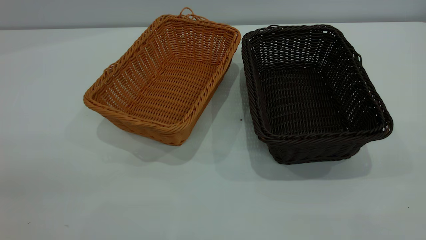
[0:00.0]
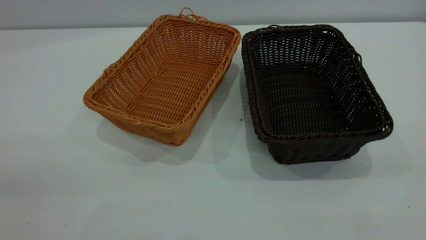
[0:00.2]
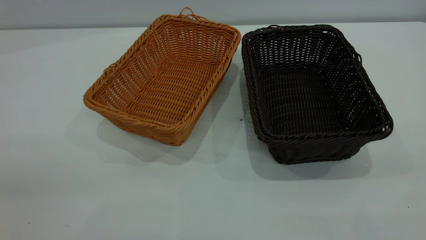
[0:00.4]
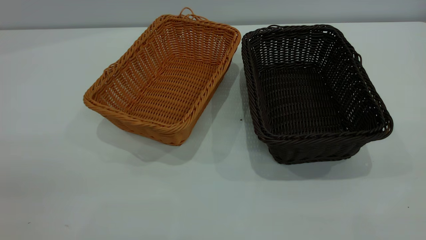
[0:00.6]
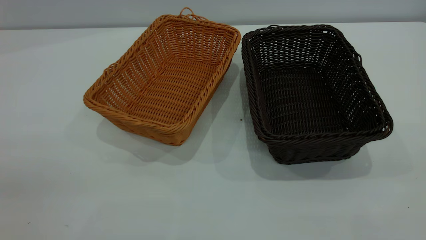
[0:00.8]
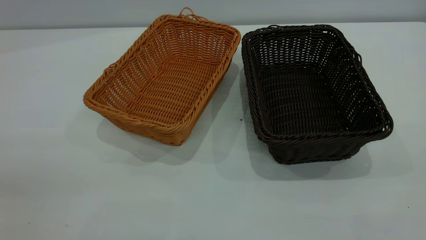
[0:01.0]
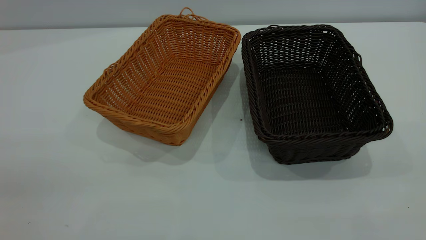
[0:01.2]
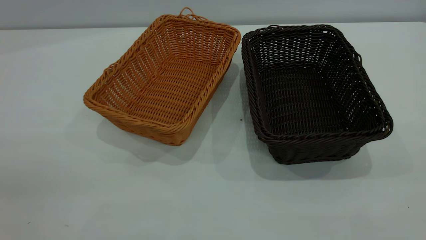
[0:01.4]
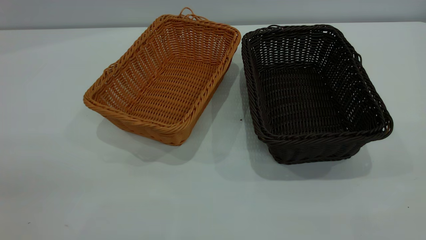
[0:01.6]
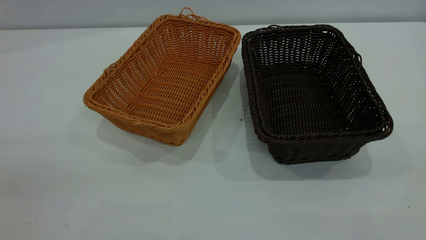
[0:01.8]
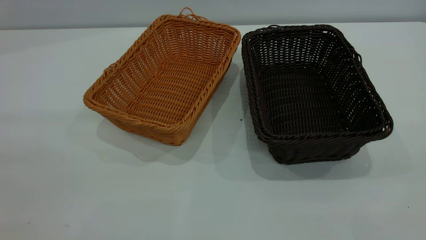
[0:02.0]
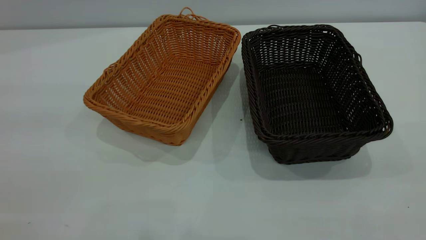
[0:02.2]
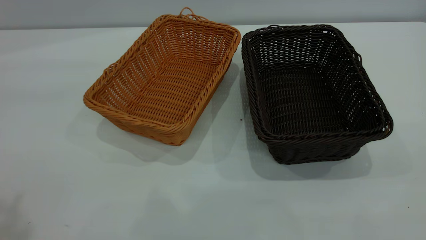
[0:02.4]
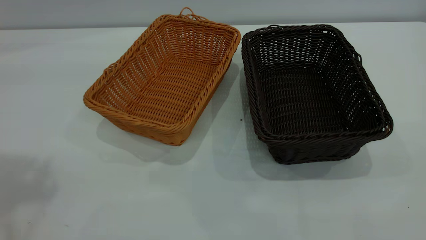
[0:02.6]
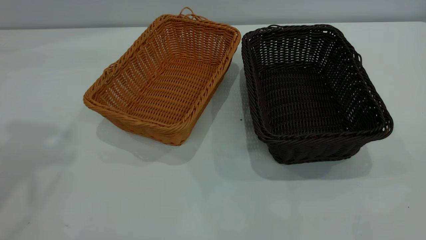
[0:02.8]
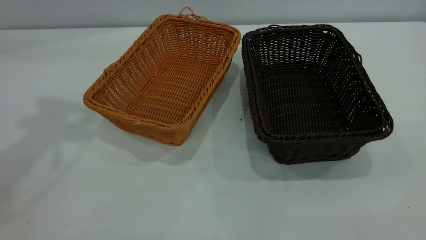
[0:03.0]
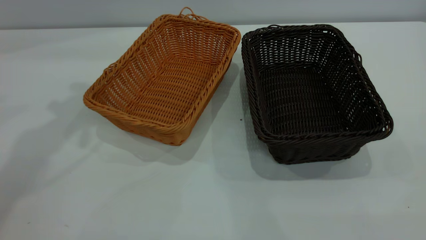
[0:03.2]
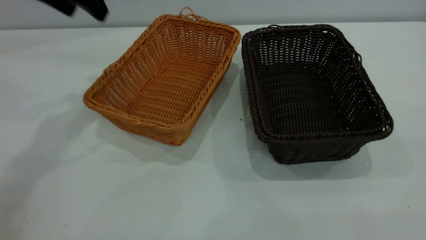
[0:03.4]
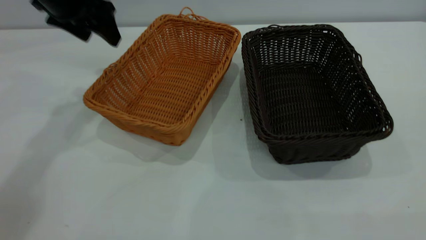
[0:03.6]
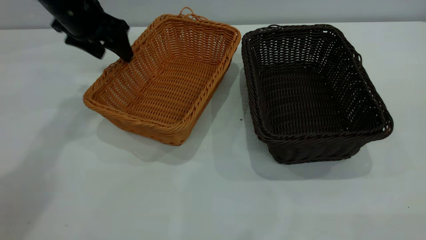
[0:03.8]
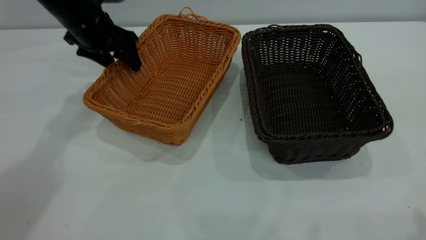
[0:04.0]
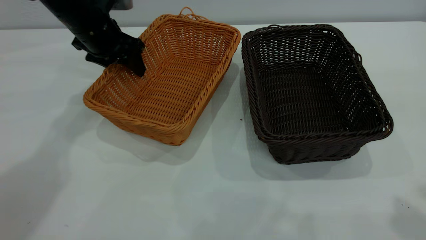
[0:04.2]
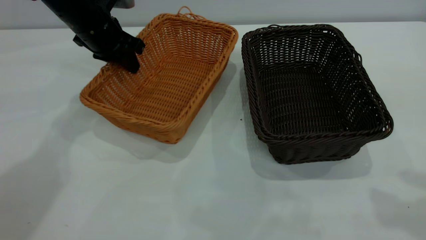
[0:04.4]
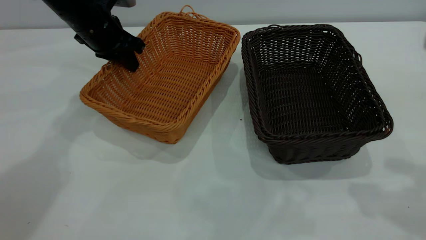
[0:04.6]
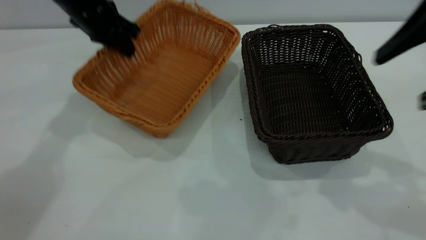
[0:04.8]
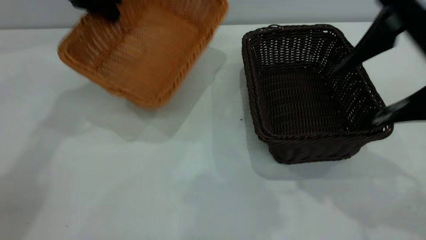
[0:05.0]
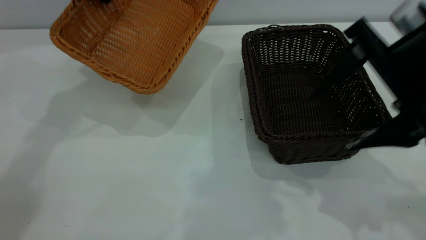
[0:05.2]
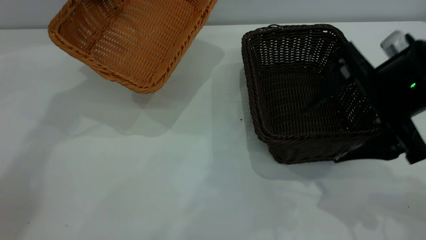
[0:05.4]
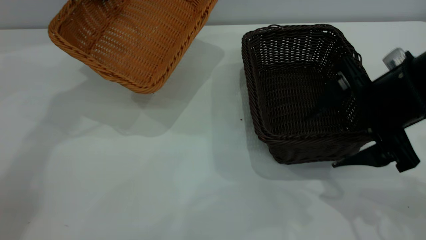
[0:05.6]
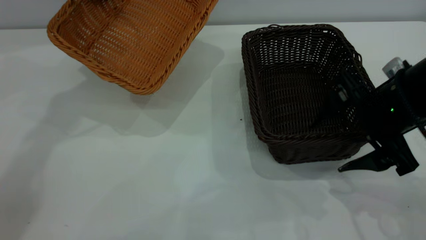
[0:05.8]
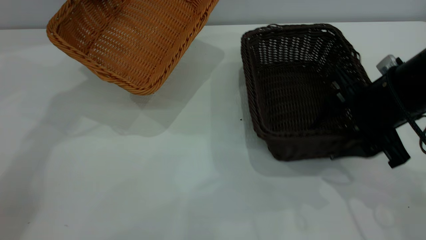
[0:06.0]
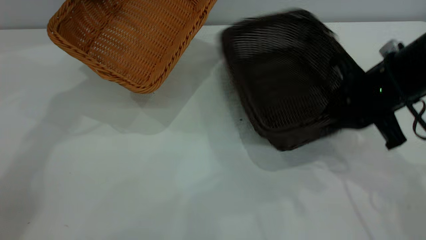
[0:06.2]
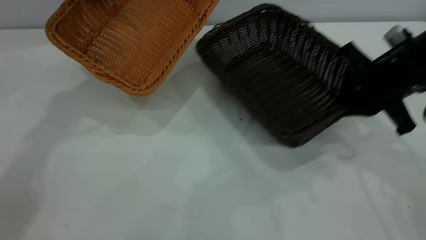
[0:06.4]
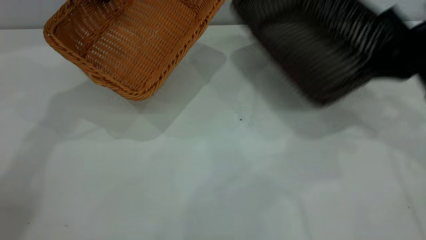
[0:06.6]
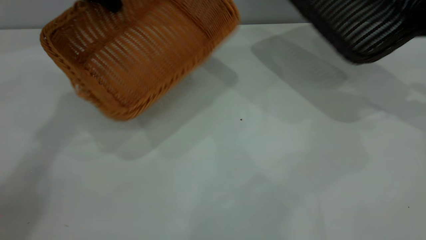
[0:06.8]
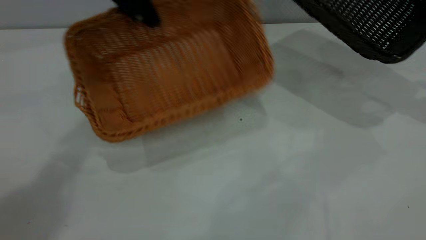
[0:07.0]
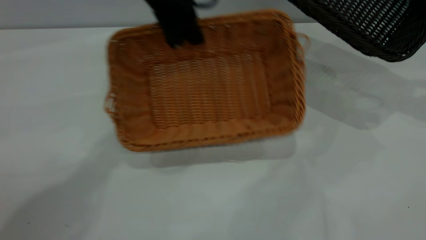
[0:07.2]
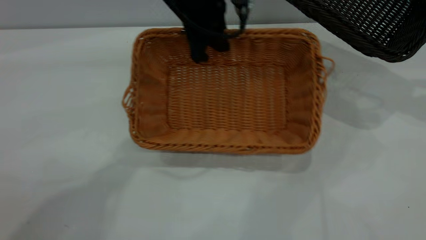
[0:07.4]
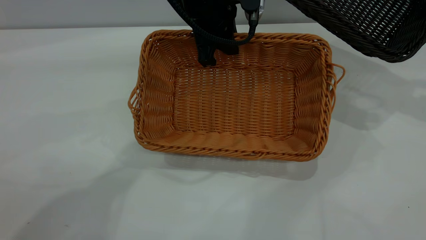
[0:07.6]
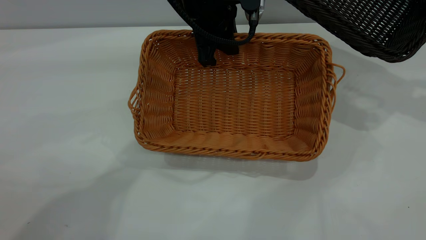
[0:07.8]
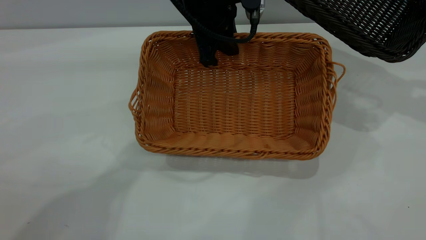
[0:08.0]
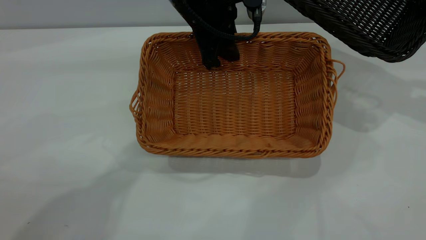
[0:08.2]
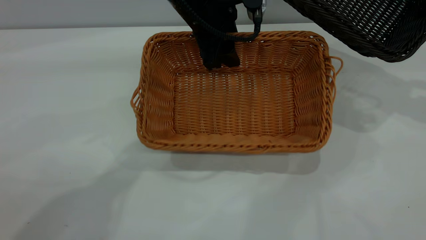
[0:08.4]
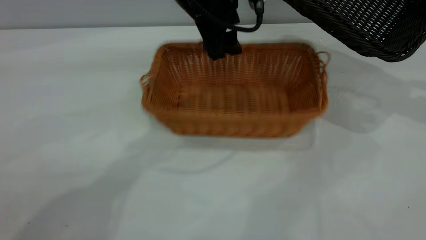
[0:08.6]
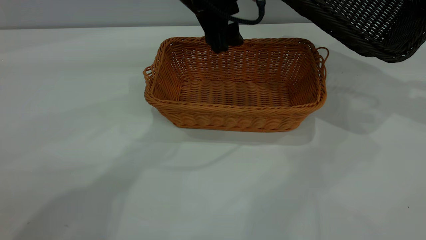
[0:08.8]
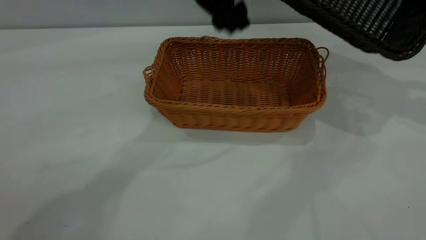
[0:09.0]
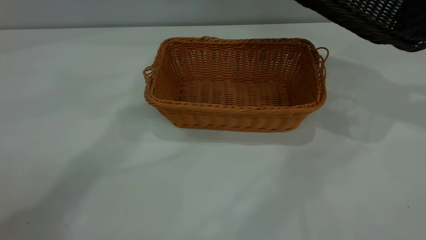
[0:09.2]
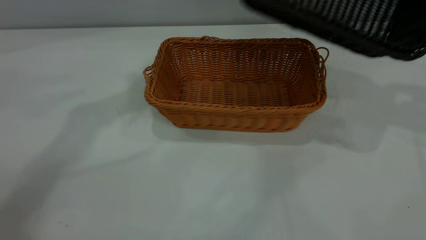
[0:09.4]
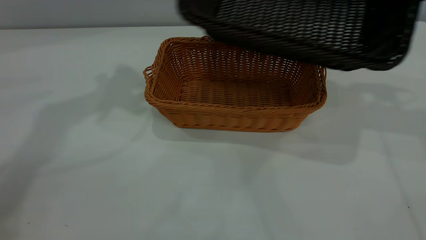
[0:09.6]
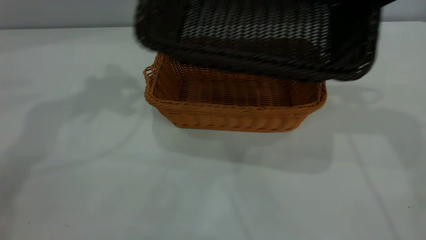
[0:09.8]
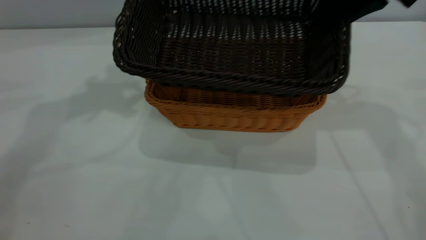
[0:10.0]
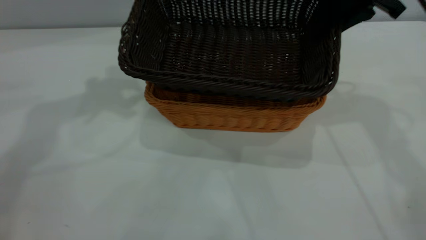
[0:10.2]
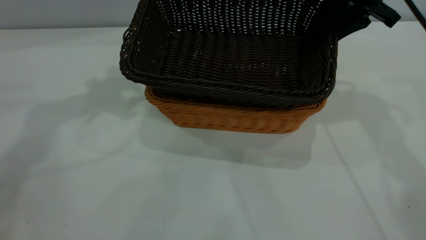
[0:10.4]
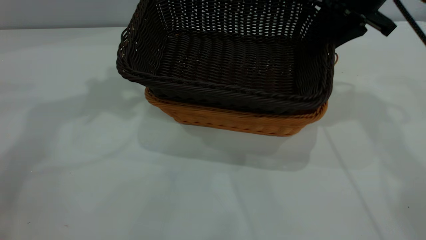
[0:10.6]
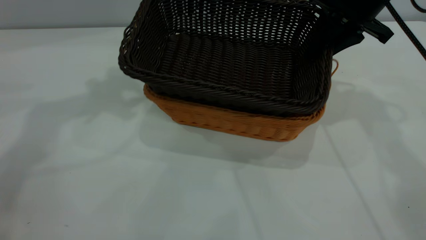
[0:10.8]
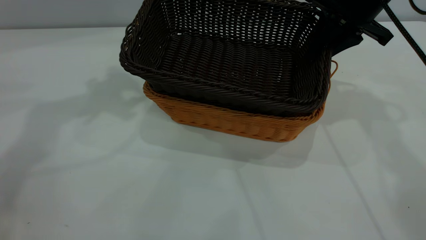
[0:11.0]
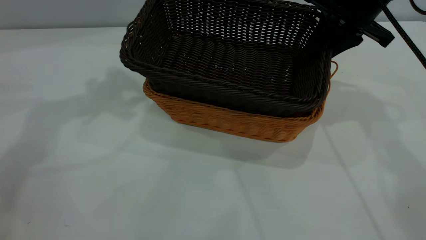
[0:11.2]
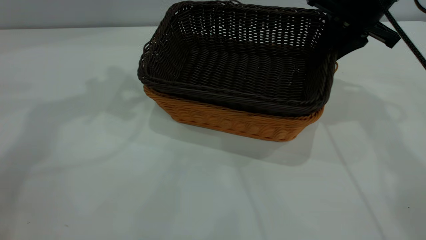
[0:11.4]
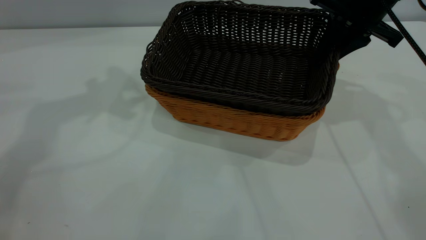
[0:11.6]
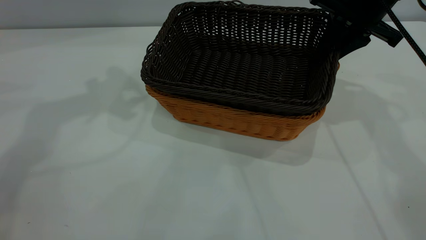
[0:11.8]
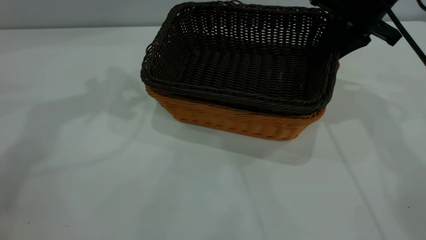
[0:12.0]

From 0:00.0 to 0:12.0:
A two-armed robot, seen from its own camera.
Task of the whole recording: the left gripper grasp the brown basket and place it in the center of the table, the right gripper grasp the black basket and place it inside the brown one.
Step, from 0:00.0 to 0:06.4: Pick up the light basket with the right gripper.
Step, from 0:06.6 to 0:08.8: Place the light-colored basket in the center.
From 0:00.0 to 0:01.6: The two grippers keep their place.
From 0:03.0 to 0:04.4: The left gripper is displaced downward and forward by roughly 25 cm, and closes its fingers; the right gripper heads forward, covering approximately 20 cm.
From 0:04.4 to 0:06.0: The left gripper is displaced upward by approximately 10 cm. The right gripper moves downward and forward, some 20 cm, and closes its fingers.
From 0:06.0 to 0:07.6: The left gripper goes about 20 cm to the right. Meanwhile the right gripper is displaced to the right, upward and forward by some 25 cm, and closes its fingers.
From 0:07.6 to 0:09.0: The left gripper opens up.
From 0:09.0 to 0:10.4: The left gripper is displaced to the left and upward by some 20 cm, while the right gripper goes some 20 cm to the left.
From 0:10.4 to 0:12.0: There are only small adjustments of the grippers.

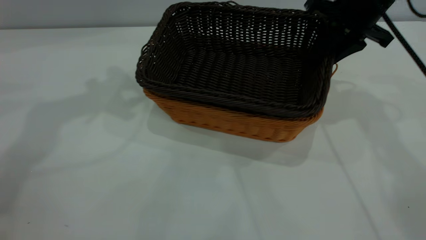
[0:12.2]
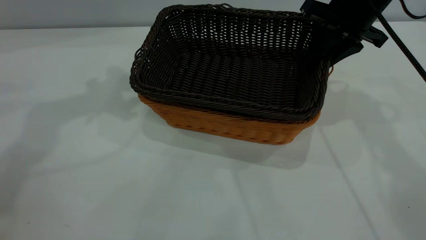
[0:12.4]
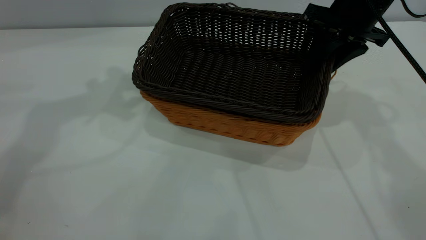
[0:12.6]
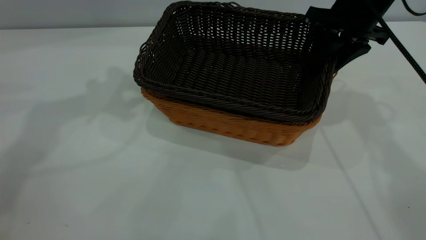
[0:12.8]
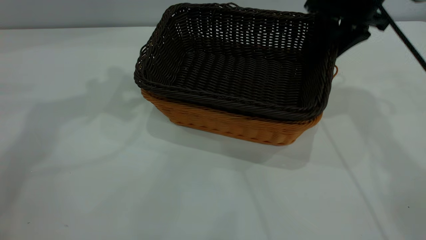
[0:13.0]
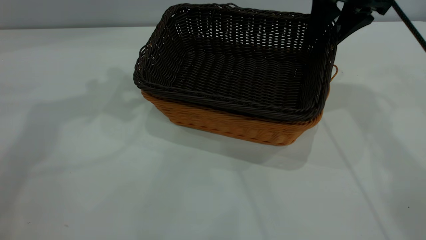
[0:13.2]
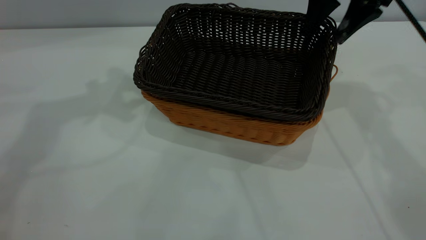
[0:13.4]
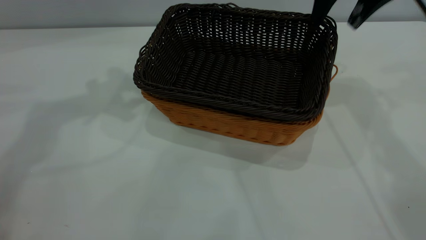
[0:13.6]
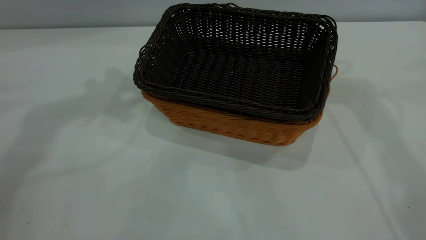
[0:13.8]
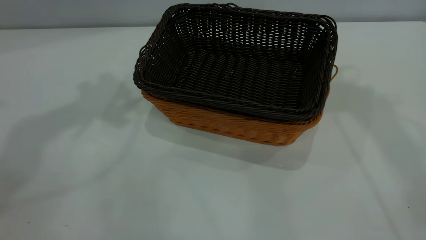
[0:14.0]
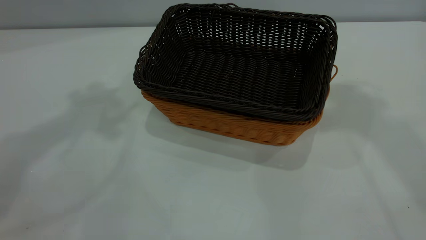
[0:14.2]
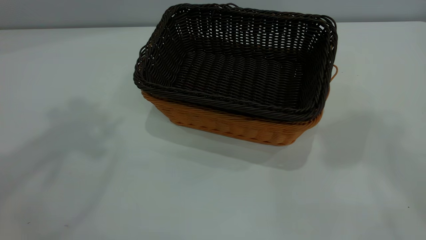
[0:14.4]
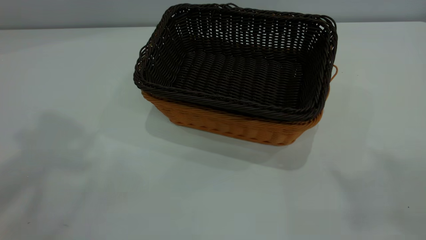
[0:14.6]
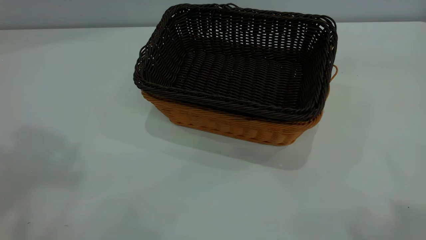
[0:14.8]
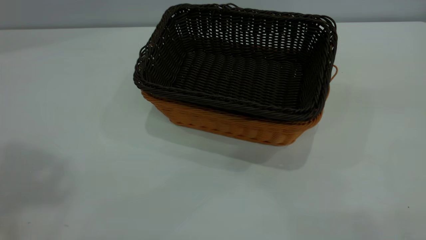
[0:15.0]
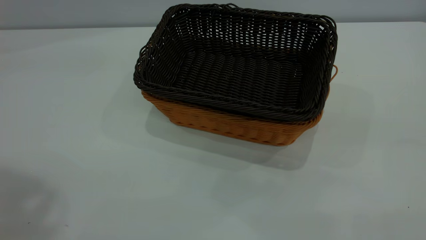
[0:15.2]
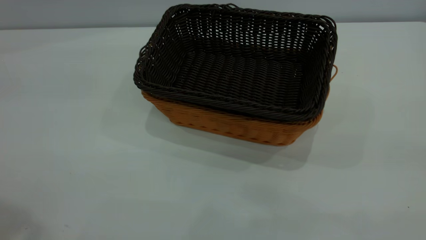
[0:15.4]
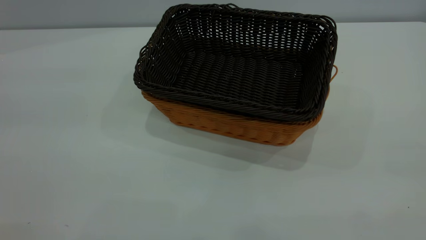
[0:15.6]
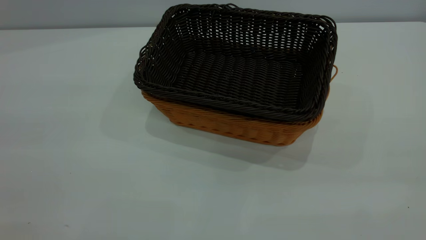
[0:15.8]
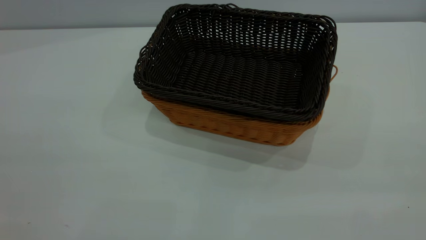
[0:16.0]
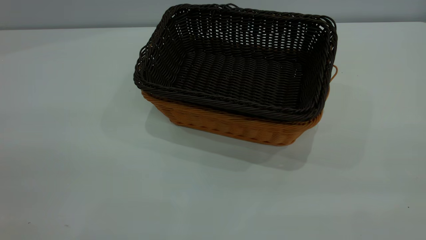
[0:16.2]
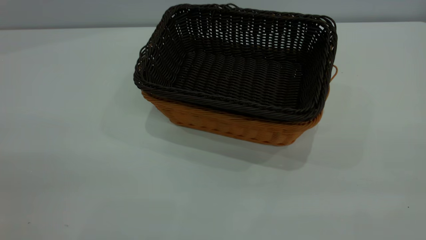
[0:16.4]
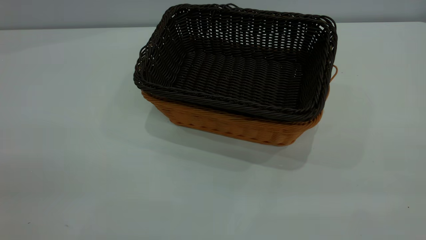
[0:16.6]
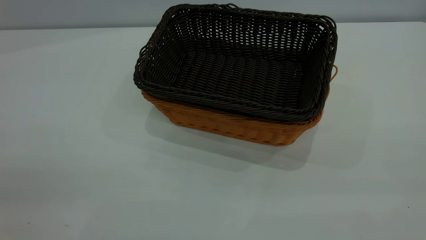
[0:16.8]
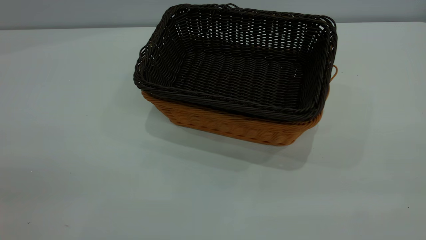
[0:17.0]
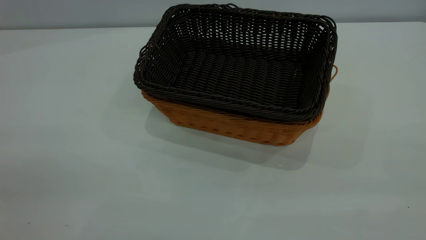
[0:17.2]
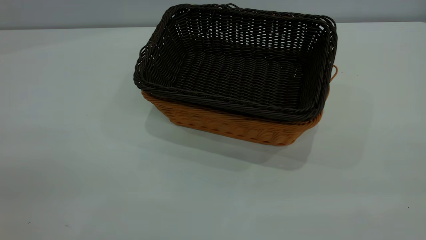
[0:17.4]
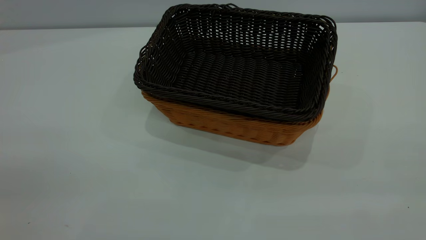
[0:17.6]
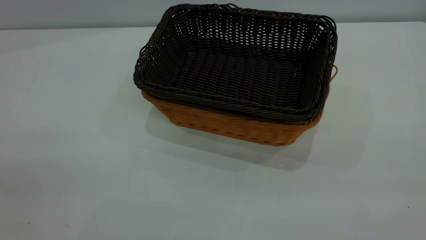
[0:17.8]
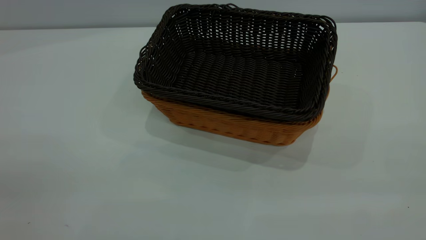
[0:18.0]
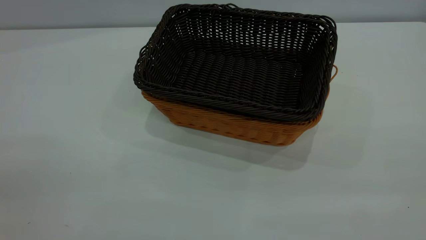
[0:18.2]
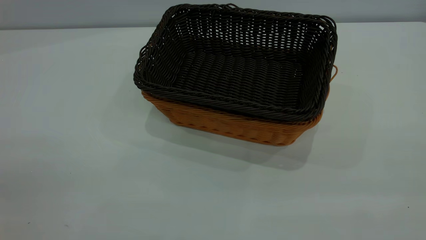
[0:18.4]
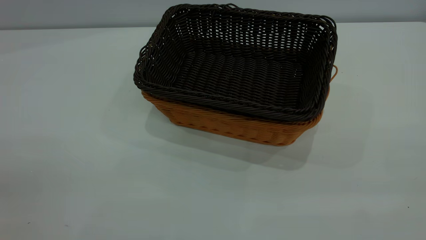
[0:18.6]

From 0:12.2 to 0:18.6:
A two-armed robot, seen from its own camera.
Task of the whole recording: the left gripper grasp the brown basket and place it in the center of the table, the right gripper grasp the black basket and place it inside the brown one.
From 0:12.2 to 0:13.8: The right gripper goes approximately 15 cm upward, and opens its fingers.
